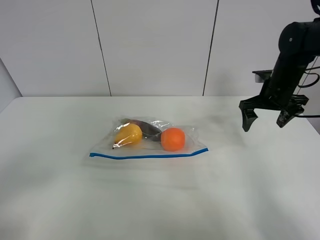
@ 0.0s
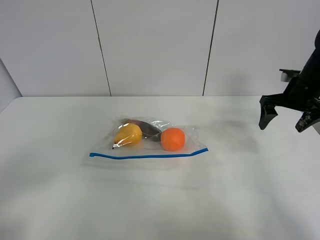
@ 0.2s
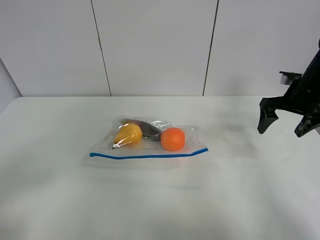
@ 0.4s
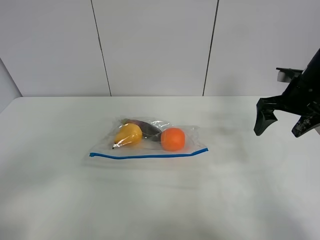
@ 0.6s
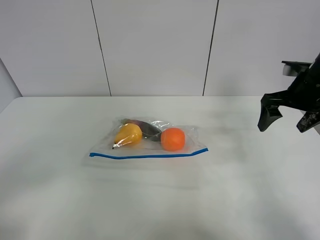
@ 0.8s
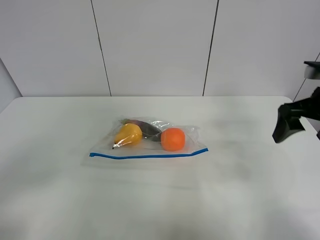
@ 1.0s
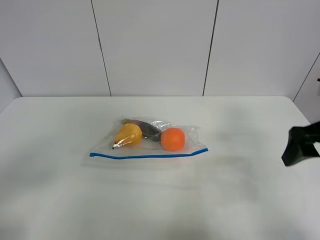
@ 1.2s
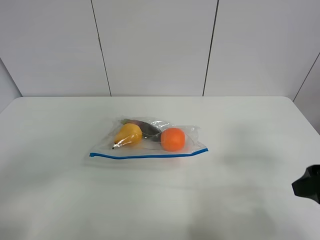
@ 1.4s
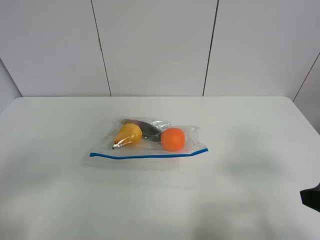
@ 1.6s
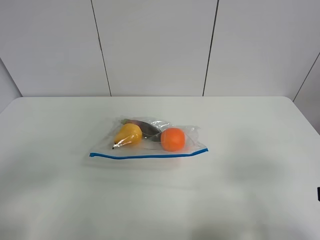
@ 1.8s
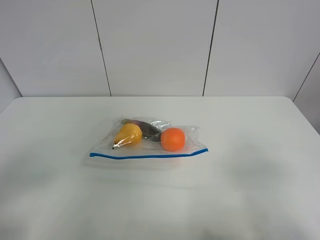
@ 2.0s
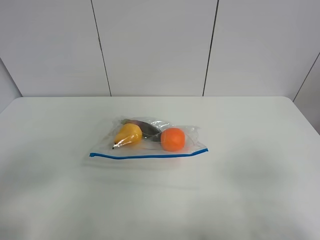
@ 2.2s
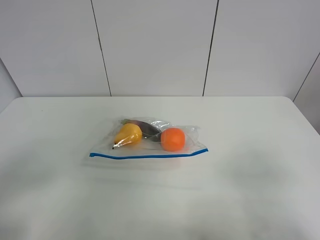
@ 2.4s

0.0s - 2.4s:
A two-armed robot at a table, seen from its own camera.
0.0s - 1.2s: The right gripper travels backward by some 20 cm.
1.2s - 2.4s: The right gripper is displaced backward by about 20 cm.

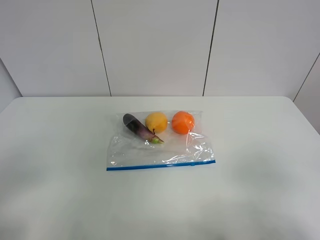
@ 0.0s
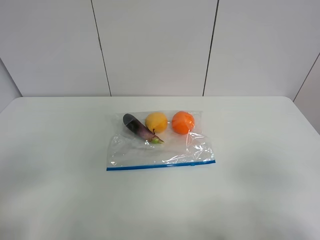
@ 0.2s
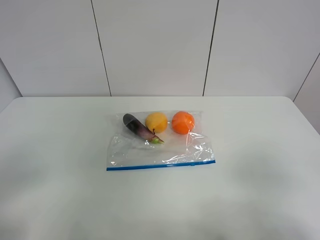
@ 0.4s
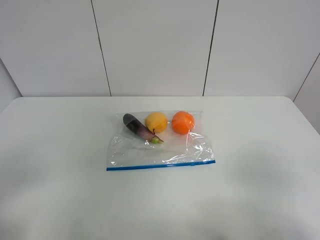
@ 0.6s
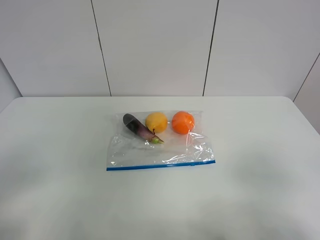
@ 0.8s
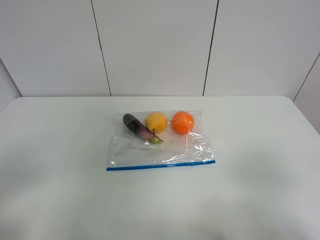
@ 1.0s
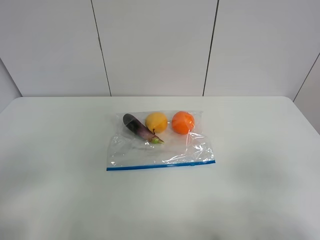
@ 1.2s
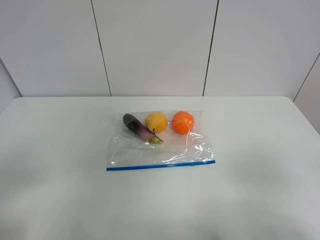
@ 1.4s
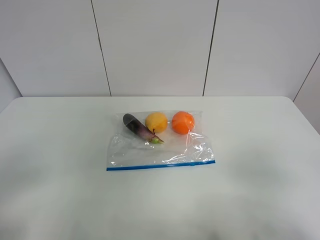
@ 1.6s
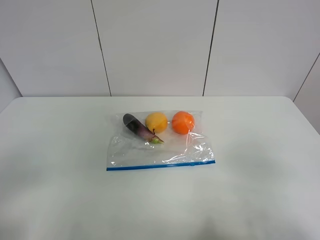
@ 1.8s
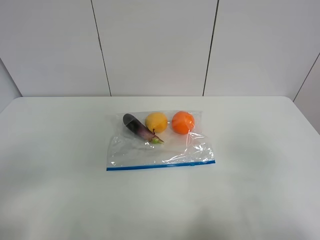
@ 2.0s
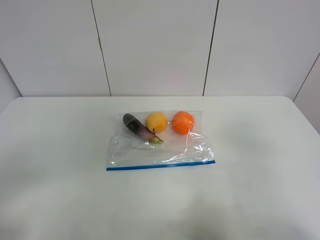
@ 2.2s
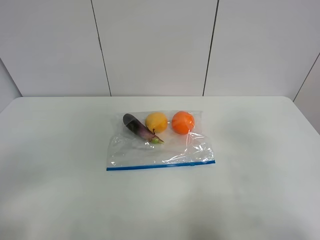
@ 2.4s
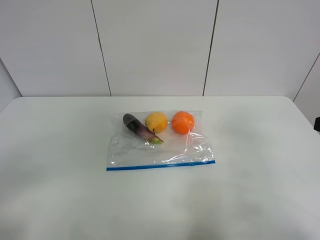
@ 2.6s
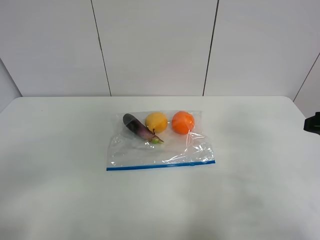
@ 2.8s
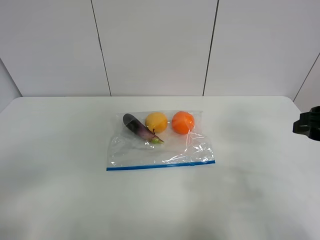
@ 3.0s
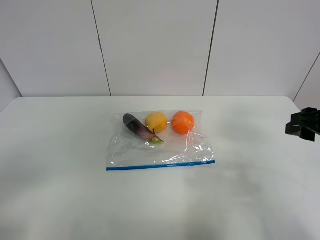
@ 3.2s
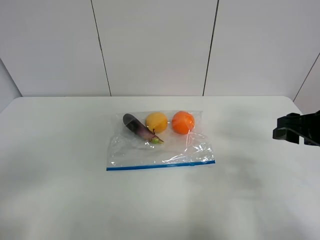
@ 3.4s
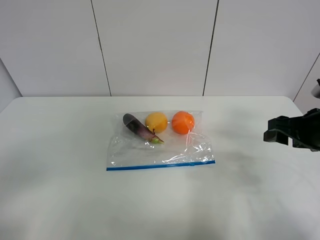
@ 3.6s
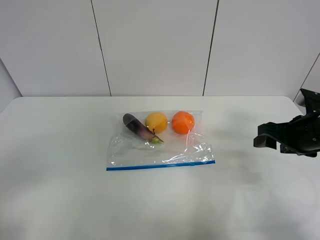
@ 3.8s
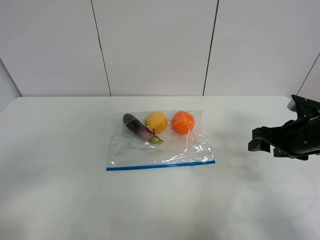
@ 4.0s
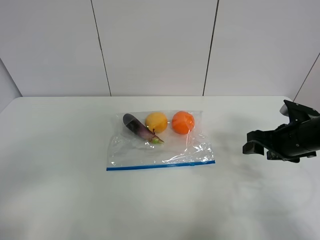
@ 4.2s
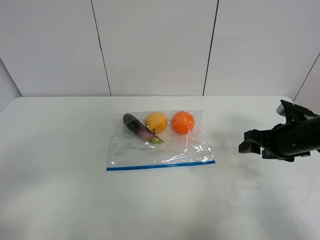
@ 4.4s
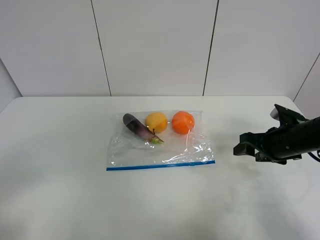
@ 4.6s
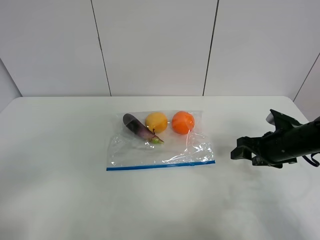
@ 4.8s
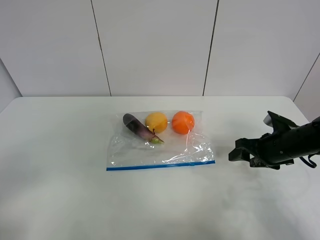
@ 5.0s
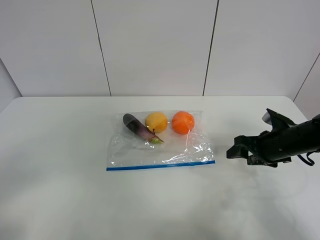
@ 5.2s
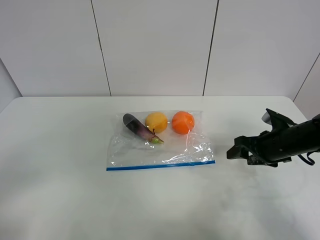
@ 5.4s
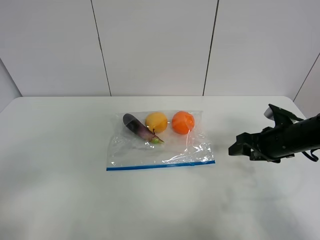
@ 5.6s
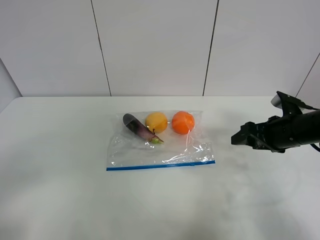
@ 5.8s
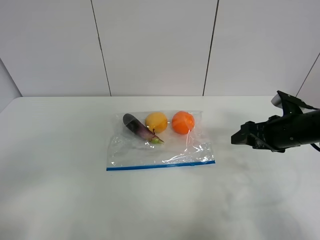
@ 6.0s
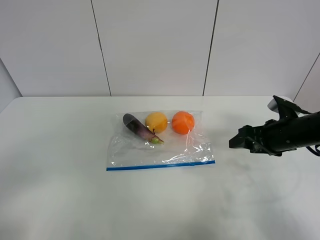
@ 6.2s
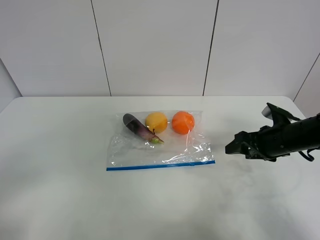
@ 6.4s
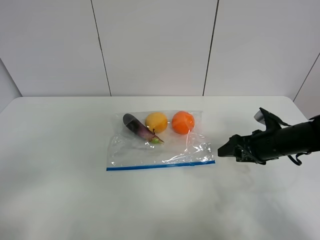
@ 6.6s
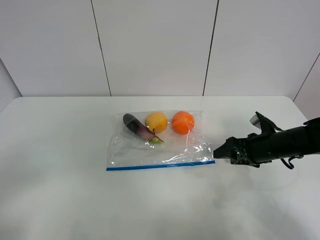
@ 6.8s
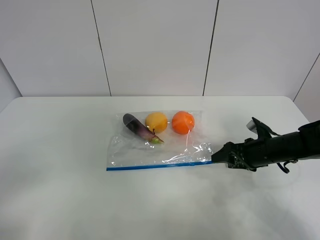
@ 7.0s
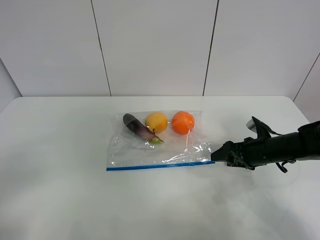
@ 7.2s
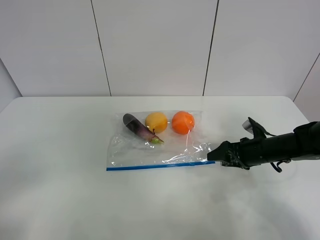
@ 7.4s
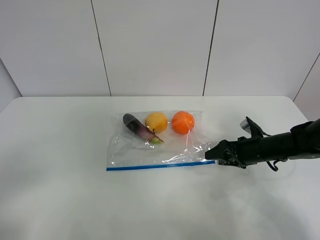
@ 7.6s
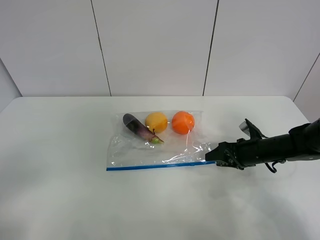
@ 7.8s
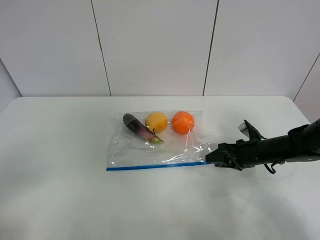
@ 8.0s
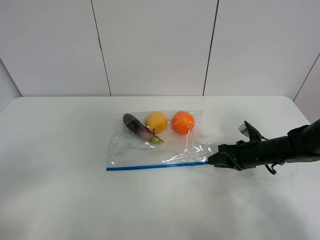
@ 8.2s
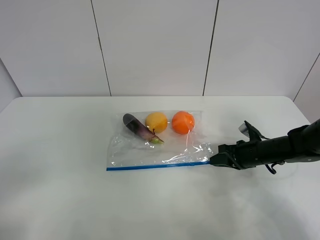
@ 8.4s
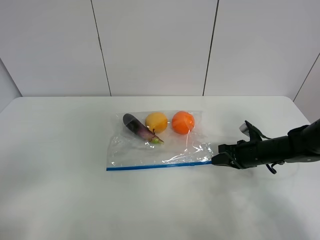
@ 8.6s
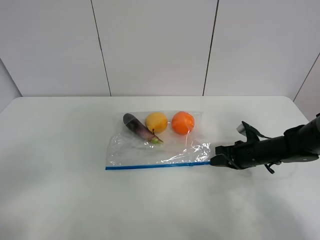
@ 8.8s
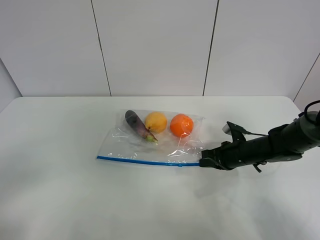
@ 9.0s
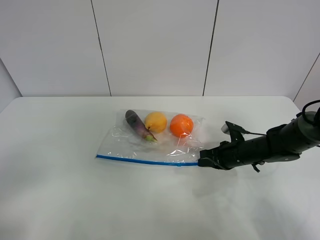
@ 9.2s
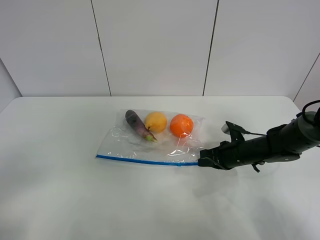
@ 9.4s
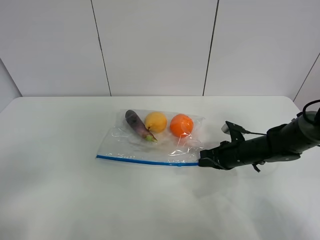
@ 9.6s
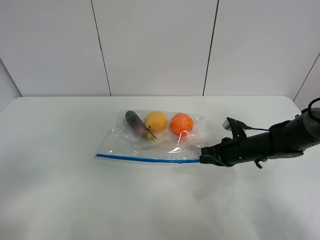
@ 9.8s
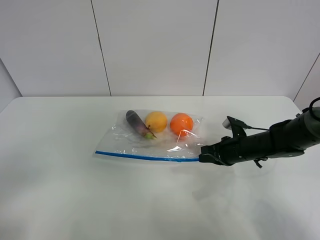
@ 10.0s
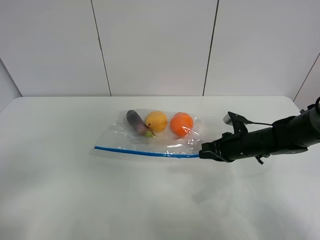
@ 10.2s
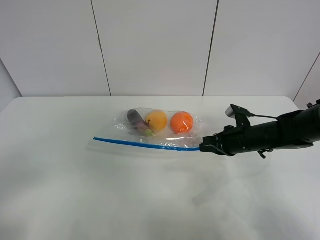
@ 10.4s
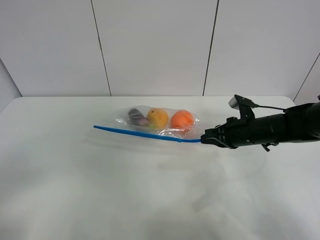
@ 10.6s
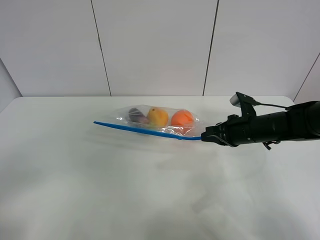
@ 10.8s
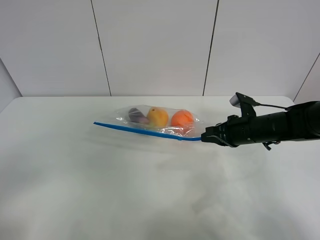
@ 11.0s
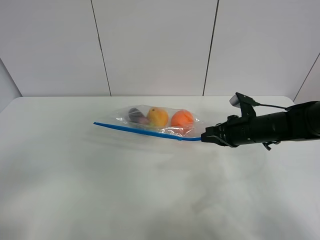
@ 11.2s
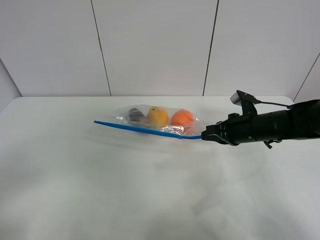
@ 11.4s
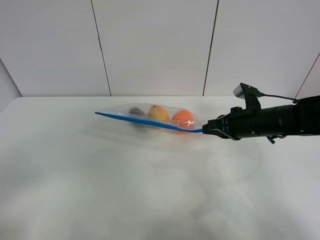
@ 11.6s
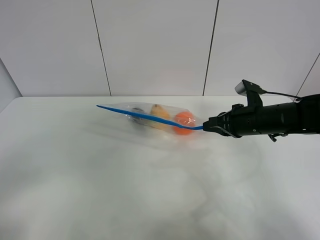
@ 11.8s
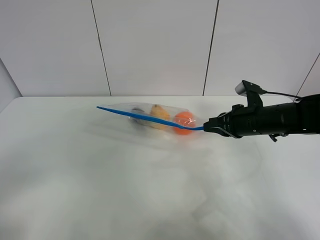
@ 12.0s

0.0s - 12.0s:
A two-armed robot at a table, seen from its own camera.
Step, 0.0s - 8.8s: Grasp the fruit bag with right gripper.
1.6s - 3.0s: The right gripper travels forward by about 15 cm.
3.0s - 4.4s: The right gripper is displaced downward and forward by approximately 15 cm.
4.4s - 6.0s: The grippers make only small movements.
6.0s - 7.6s: The right gripper shifts roughly 10 cm downward.
7.6s - 9.0s: The right gripper closes its fingers.
9.0s - 10.4s: The right gripper travels upward by approximately 5 cm.
10.4s - 12.0s: The right gripper shifts approximately 5 cm upward.

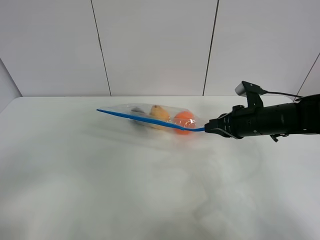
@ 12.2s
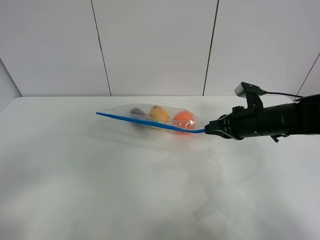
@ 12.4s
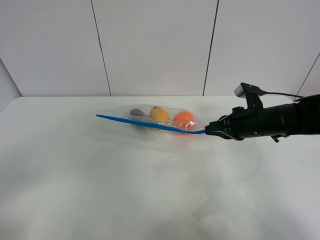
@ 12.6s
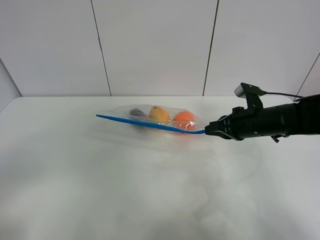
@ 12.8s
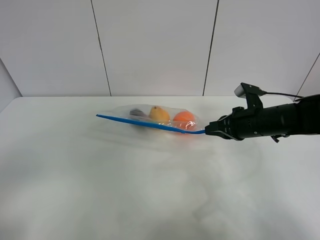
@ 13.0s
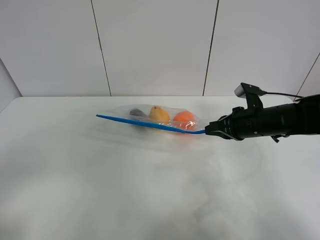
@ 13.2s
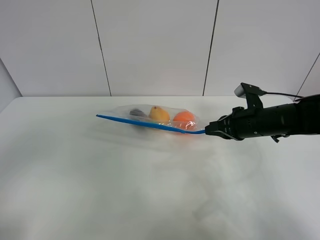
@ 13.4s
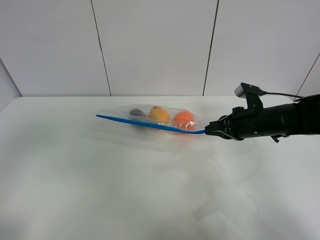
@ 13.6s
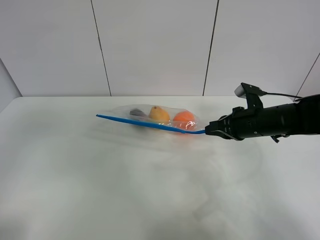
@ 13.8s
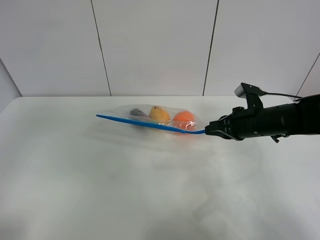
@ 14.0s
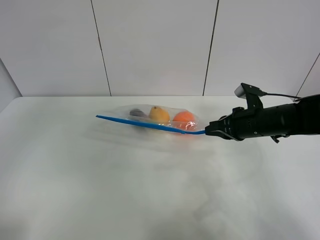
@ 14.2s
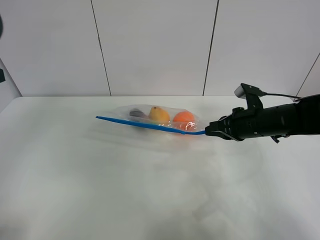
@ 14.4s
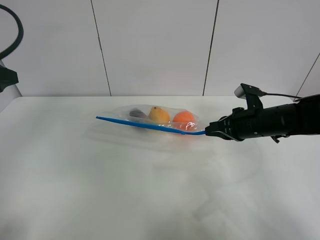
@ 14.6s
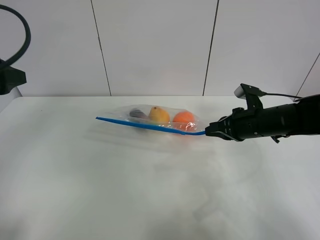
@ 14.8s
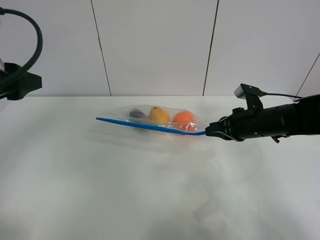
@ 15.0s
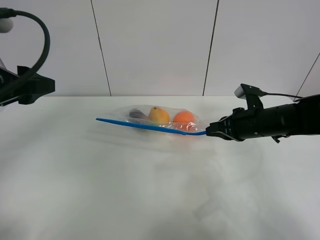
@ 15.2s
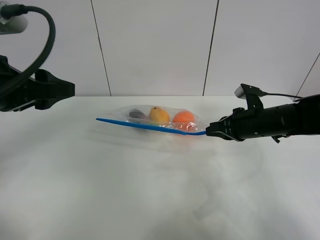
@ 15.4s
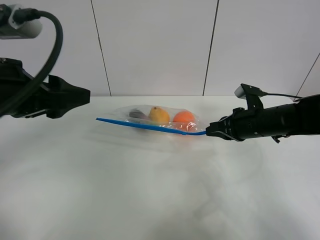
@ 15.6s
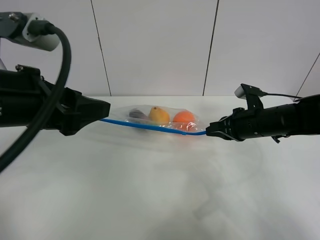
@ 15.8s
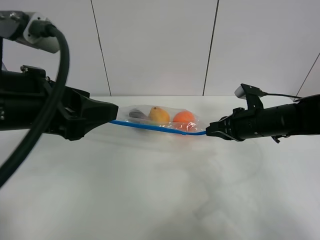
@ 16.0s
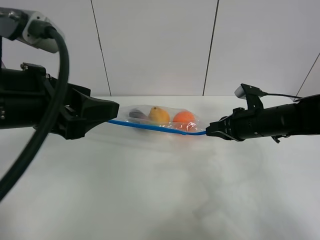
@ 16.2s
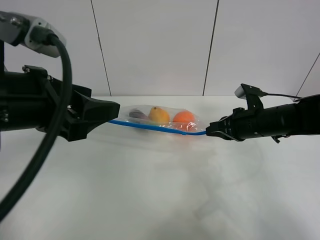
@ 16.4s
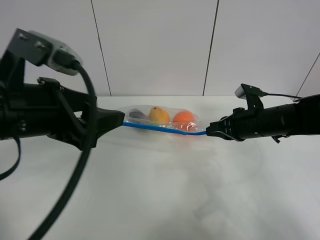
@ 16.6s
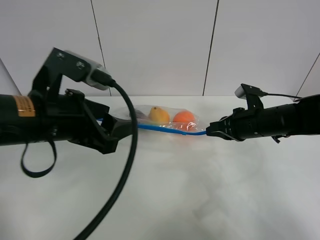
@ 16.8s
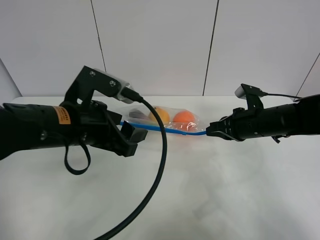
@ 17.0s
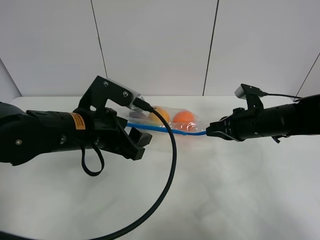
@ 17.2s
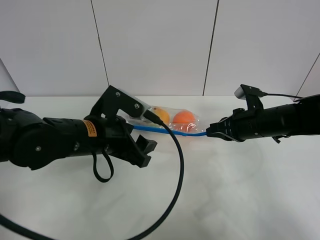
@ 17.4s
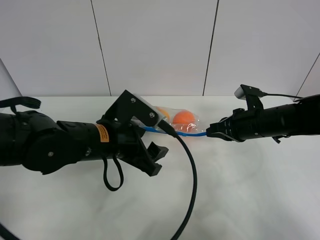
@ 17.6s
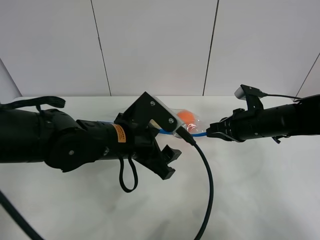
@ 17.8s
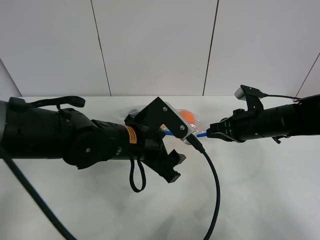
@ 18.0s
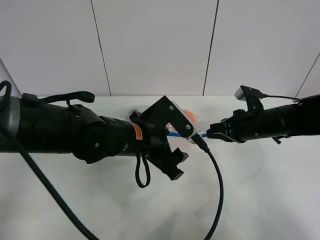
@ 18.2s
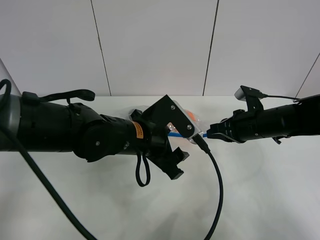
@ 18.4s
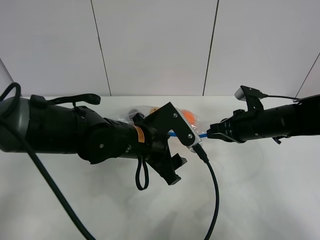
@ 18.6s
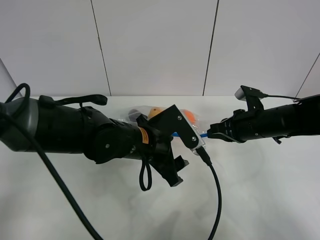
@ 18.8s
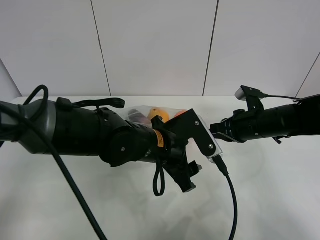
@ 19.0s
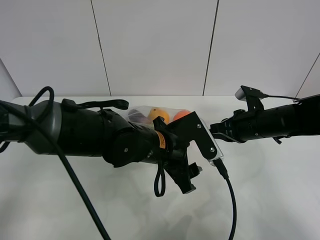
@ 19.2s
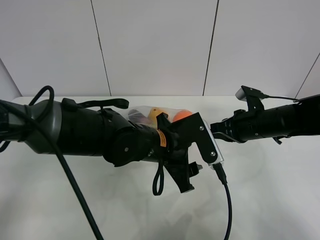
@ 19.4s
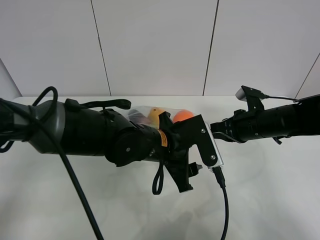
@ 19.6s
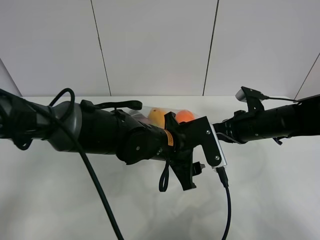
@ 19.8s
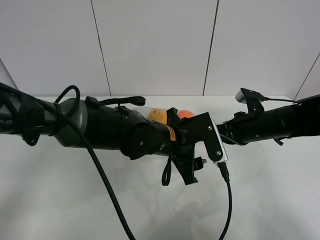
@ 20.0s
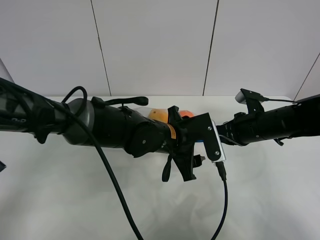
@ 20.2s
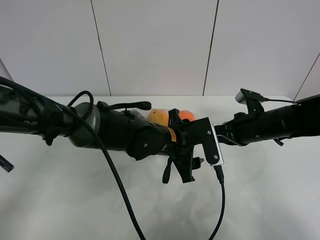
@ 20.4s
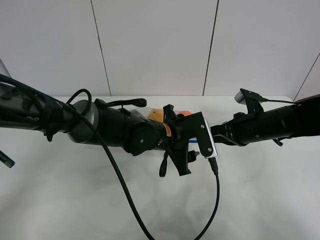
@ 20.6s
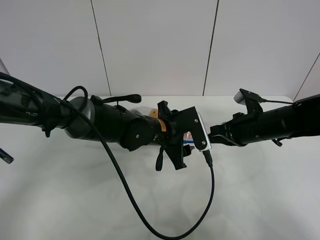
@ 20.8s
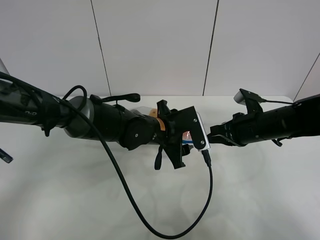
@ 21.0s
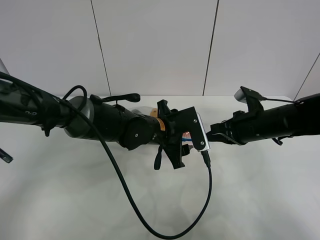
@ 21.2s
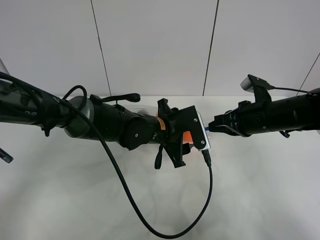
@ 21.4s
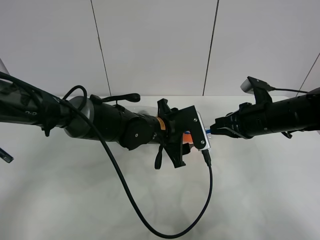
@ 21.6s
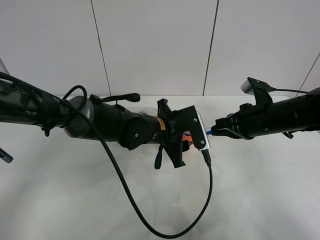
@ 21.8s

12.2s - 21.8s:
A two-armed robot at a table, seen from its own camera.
12.2s - 13.8s: The left gripper moves forward and upward, some 15 cm.
13.8s - 15.4s: The left gripper is displaced forward and to the right by approximately 15 cm.
15.4s - 17.0s: The left gripper travels to the right and downward by some 15 cm.
17.0s - 18.6s: The left gripper travels to the right and downward by approximately 10 cm.
18.6s - 20.2s: The left gripper travels to the right by about 5 cm.
20.2s - 21.8s: The grippers make only small movements.
